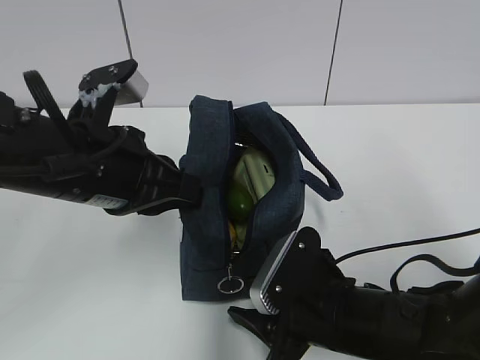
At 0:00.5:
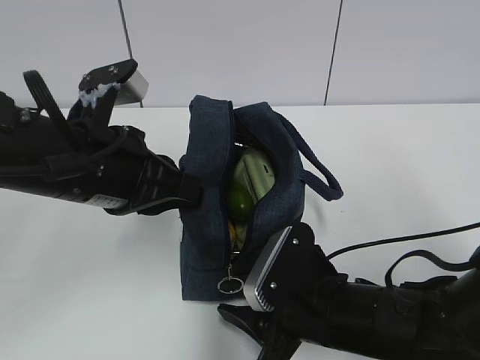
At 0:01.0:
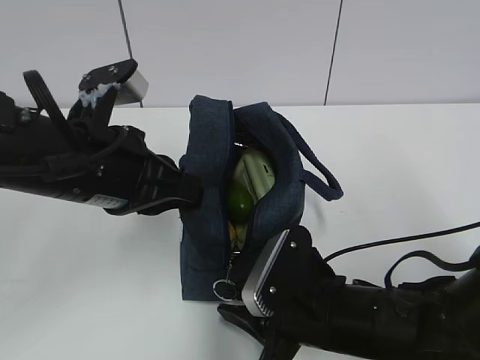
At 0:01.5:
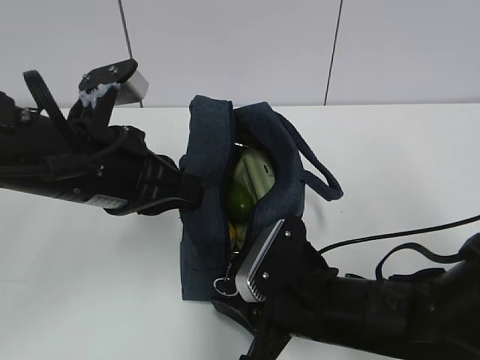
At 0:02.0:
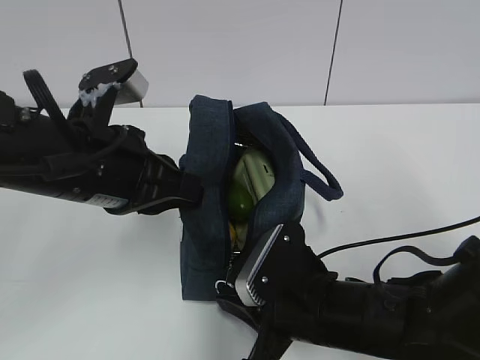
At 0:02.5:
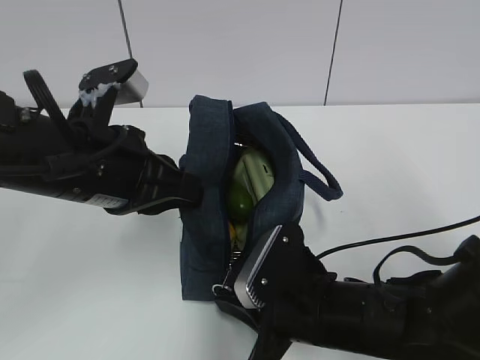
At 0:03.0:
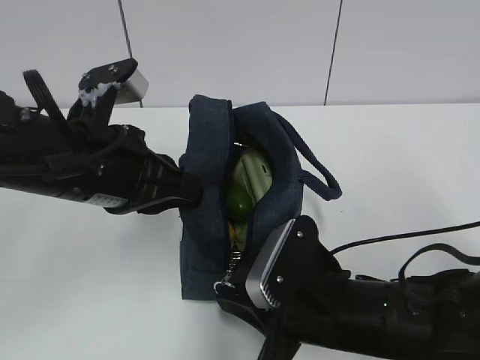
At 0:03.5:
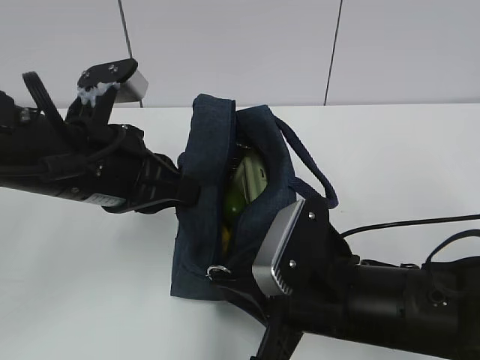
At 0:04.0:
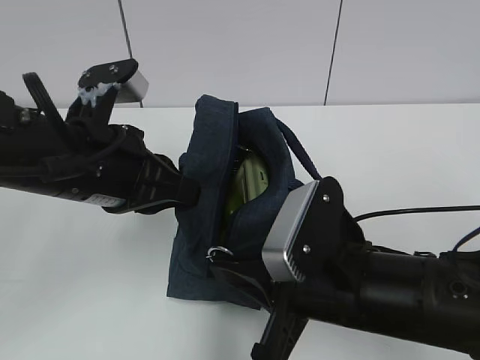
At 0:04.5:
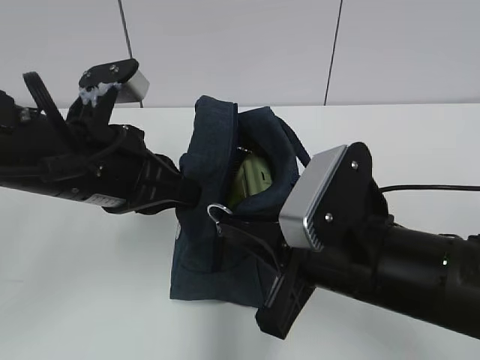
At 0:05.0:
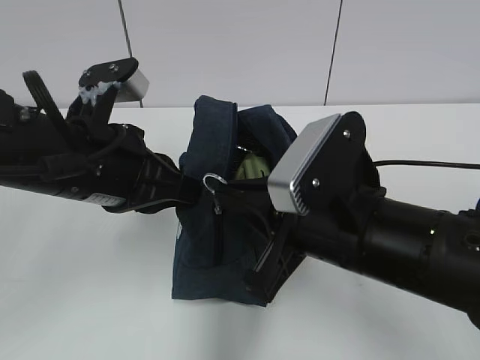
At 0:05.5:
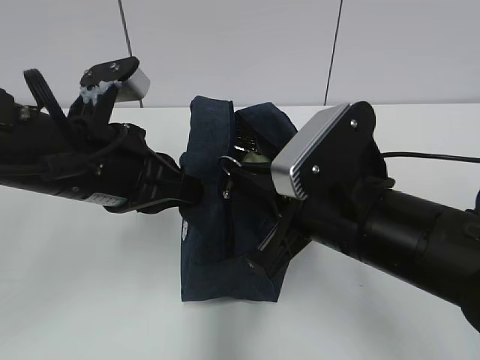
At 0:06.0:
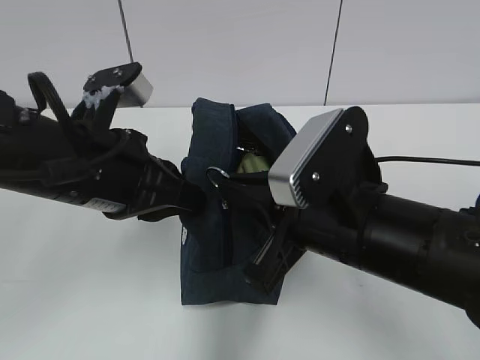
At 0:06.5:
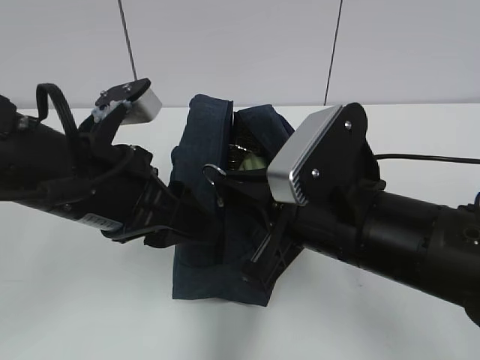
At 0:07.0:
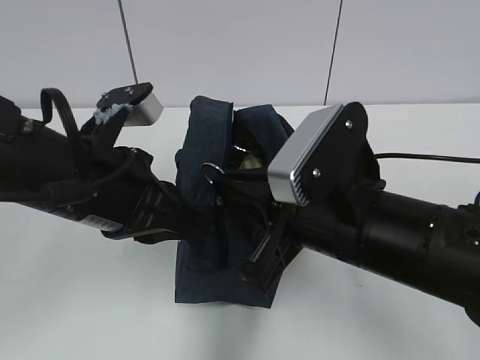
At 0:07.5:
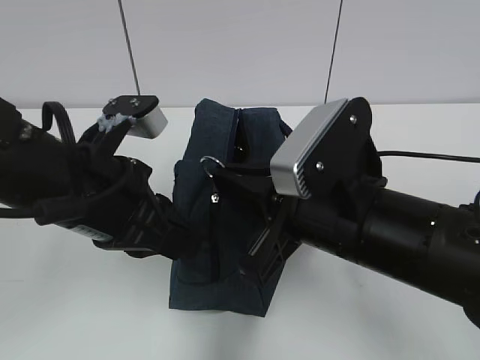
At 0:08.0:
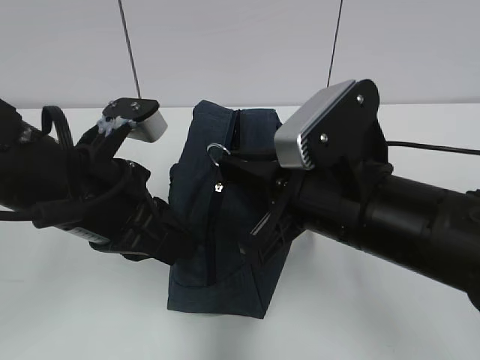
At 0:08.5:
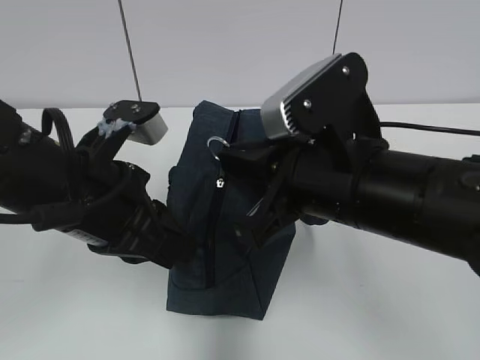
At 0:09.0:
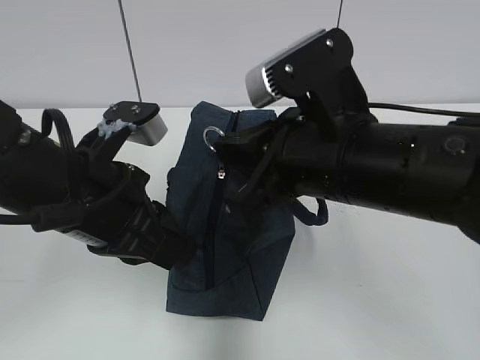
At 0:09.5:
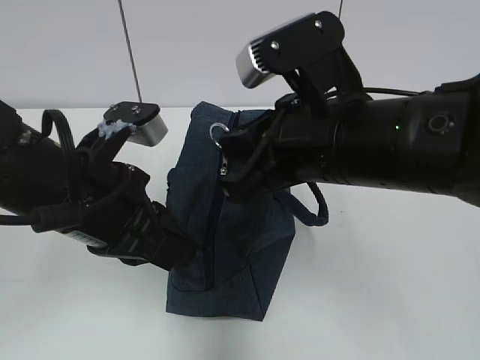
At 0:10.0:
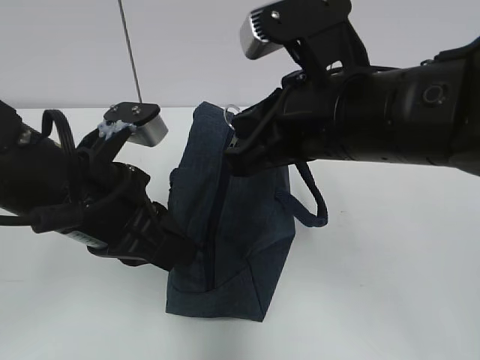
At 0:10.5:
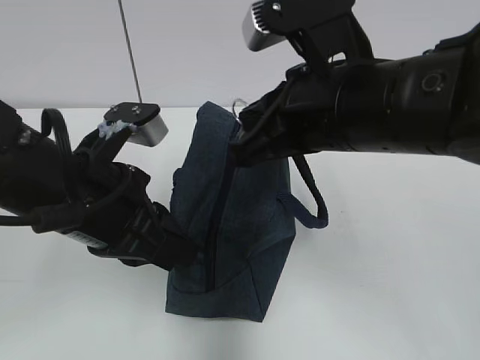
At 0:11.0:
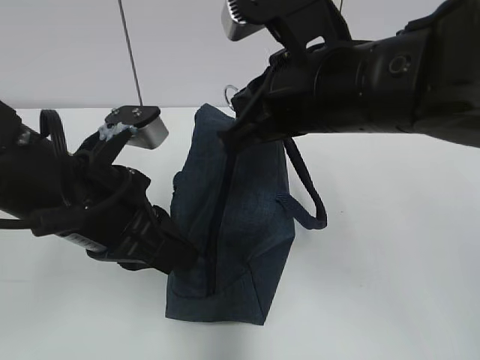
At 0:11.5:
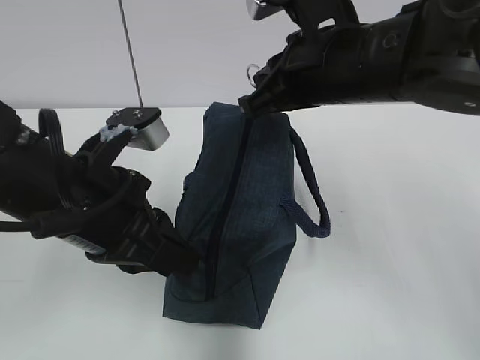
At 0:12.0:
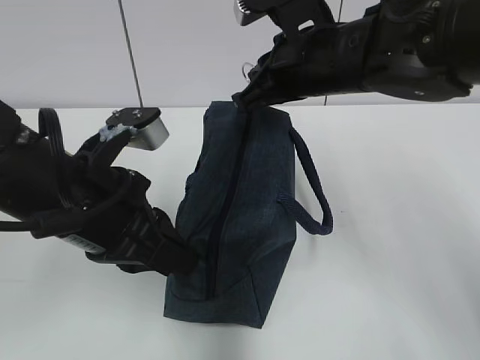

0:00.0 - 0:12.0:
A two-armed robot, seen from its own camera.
0:00.0 - 0:02.0: The right gripper closes.
0:02.0 - 0:04.0: The right gripper heads upward, covering approximately 5 cm.
0:06.0 - 0:08.0: The left gripper opens, then closes again.
0:08.0 - 0:10.0: The right gripper shifts approximately 5 cm upward.
0:10.0 - 0:12.0: The right gripper heads forward, covering approximately 10 cm.

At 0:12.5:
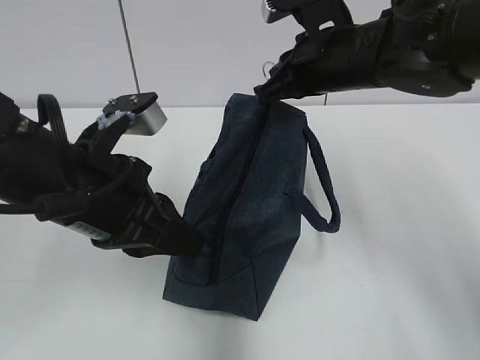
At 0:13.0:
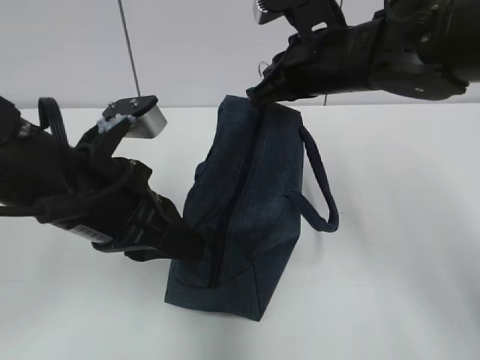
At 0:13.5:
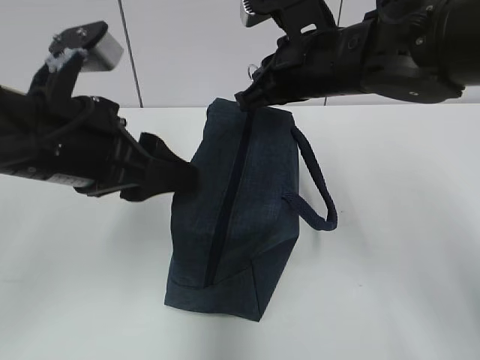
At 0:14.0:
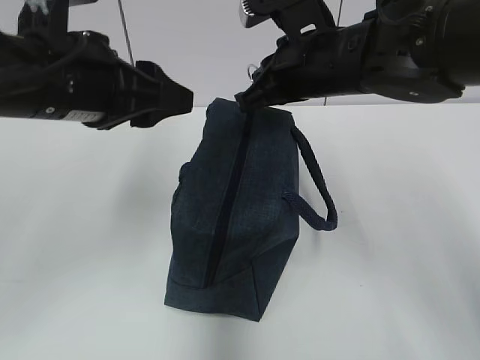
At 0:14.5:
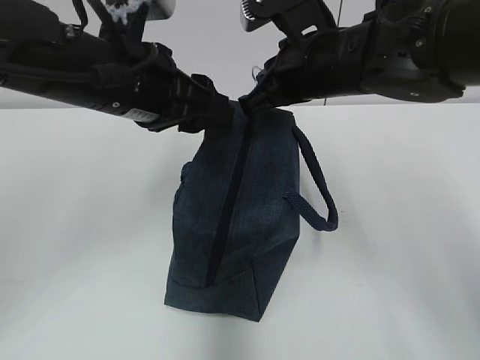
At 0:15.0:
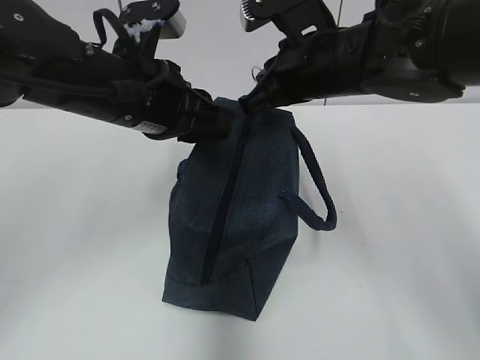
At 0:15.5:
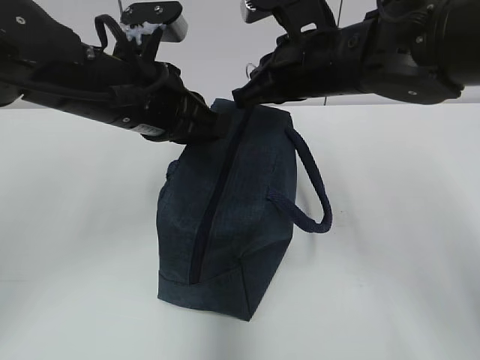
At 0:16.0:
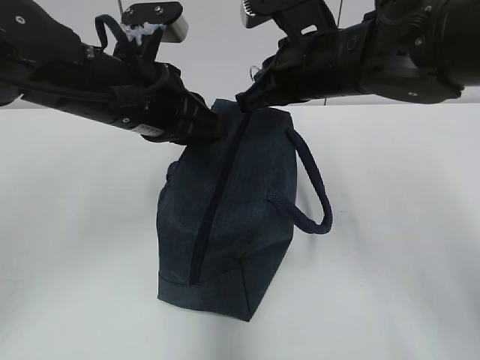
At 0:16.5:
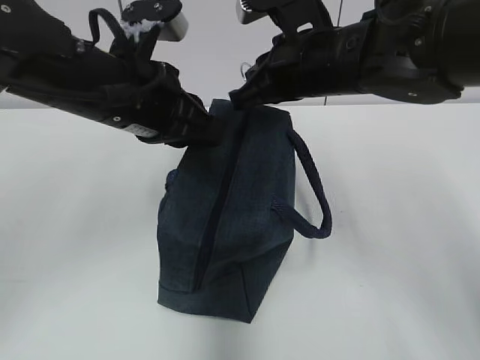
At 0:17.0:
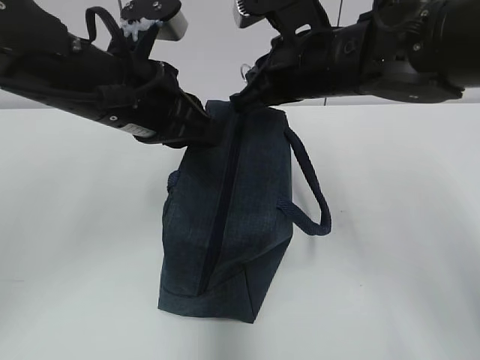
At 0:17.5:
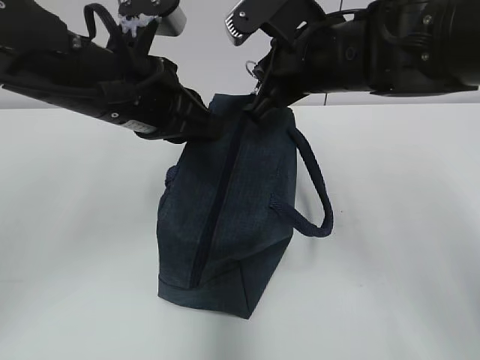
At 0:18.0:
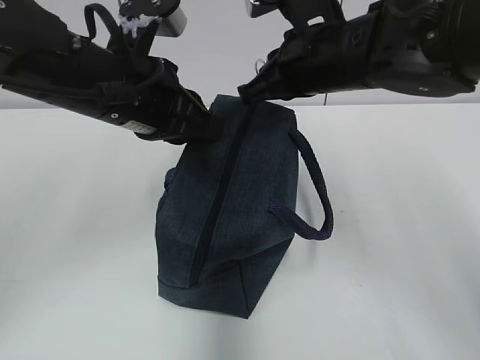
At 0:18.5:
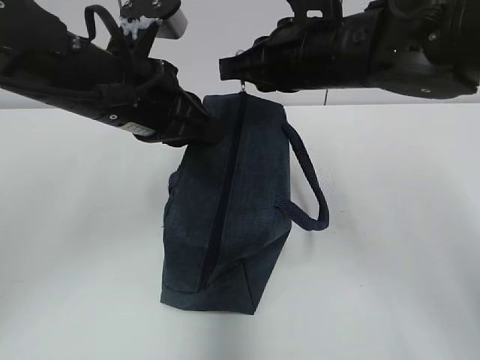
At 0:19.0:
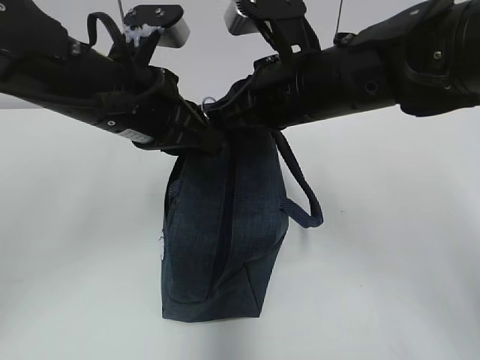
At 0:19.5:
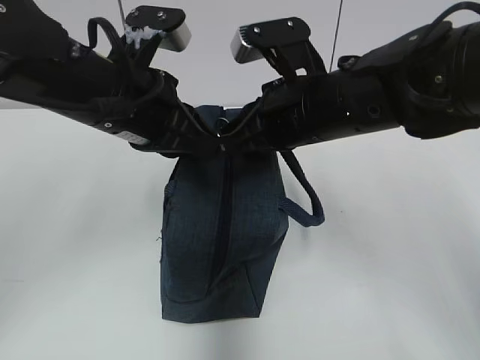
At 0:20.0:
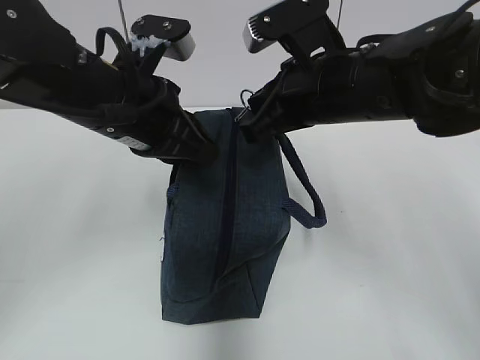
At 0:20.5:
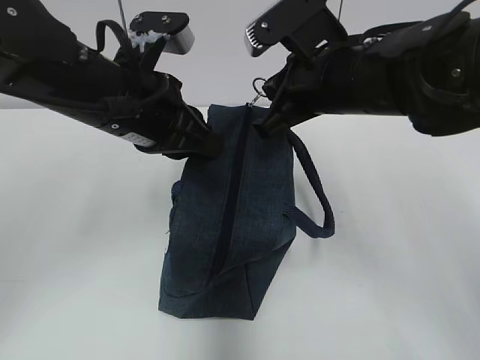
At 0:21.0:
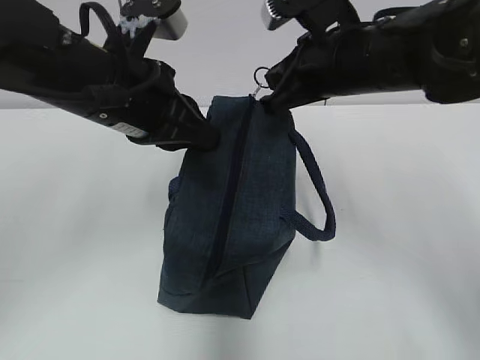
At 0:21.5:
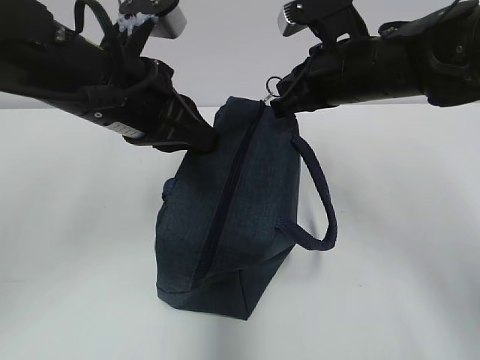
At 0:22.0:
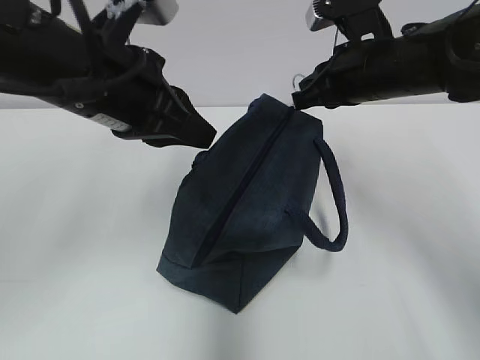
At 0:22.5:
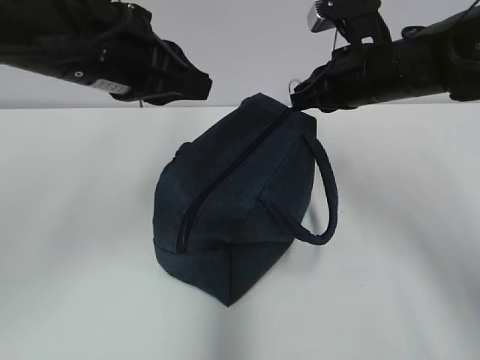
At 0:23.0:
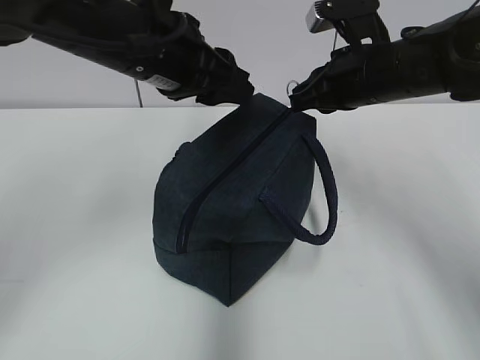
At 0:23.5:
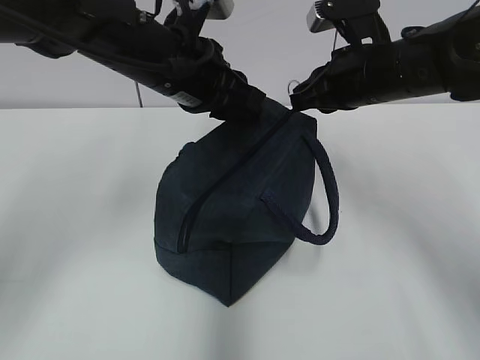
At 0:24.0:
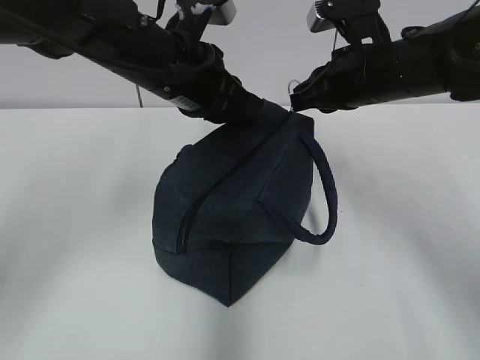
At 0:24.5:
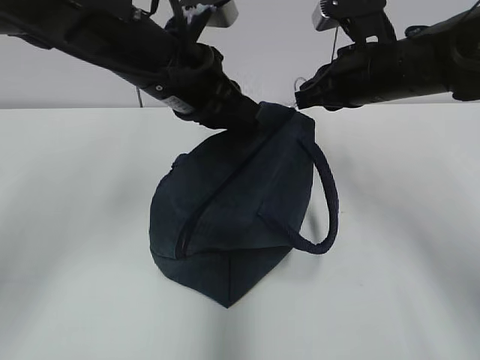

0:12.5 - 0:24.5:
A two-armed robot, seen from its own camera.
0:12.5 - 0:14.5: The left gripper travels forward and upward by approximately 10 cm, and opens its fingers.
0:14.5 - 0:16.5: The left gripper closes up.
0:20.5 - 0:22.5: The right gripper goes some 5 cm to the right, while the left gripper travels upward by approximately 5 cm.
0:22.5 - 0:24.5: The left gripper travels forward by about 5 cm, and opens and closes again.

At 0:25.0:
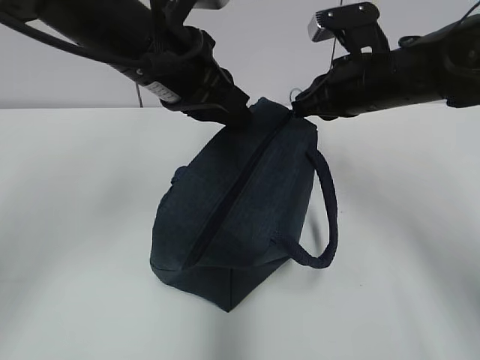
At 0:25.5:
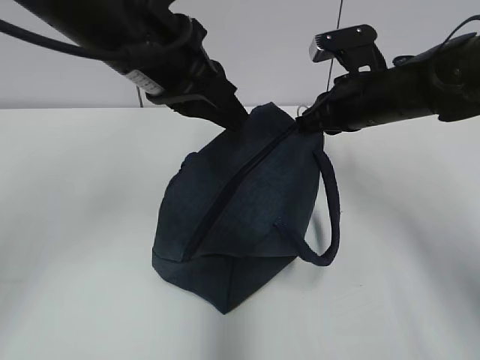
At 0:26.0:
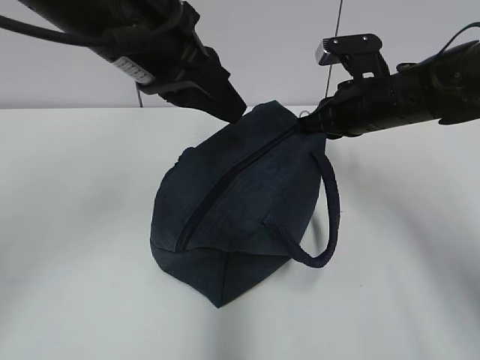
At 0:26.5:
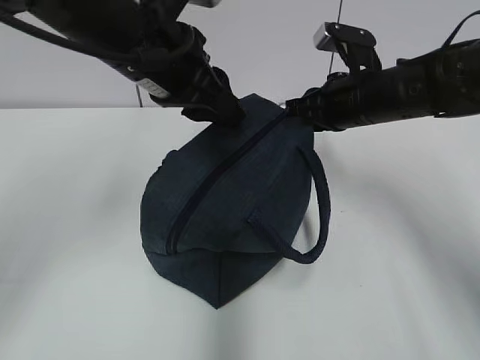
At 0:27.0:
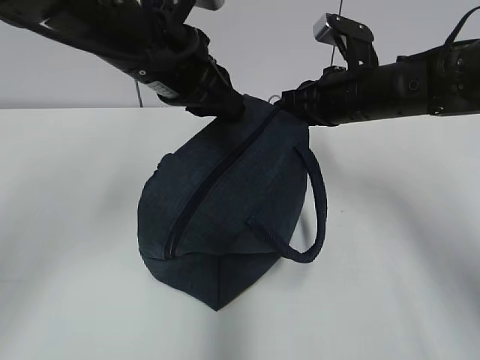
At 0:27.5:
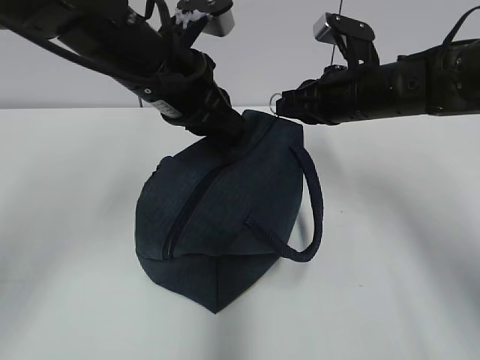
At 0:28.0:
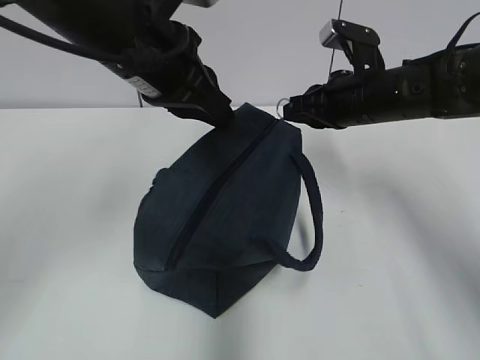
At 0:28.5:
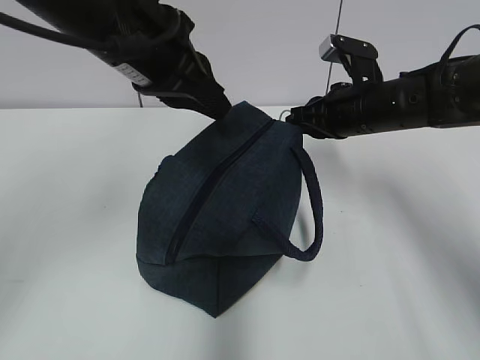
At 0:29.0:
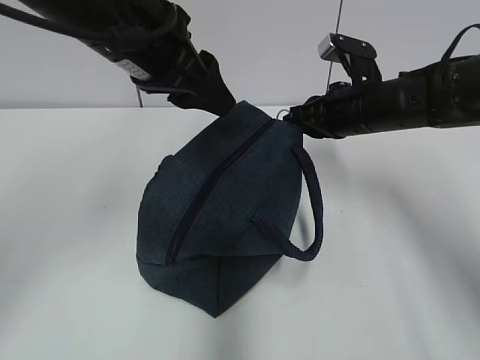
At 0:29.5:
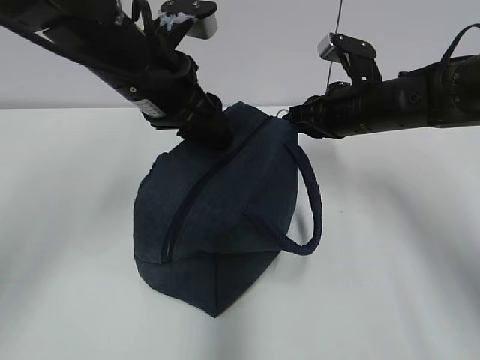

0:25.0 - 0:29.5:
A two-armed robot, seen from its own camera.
0:27.0 - 0:29.5: The left gripper opens.
